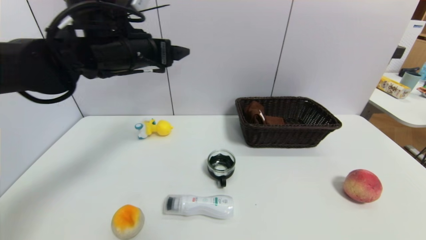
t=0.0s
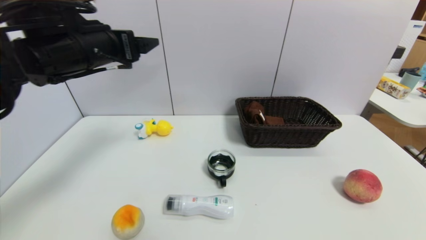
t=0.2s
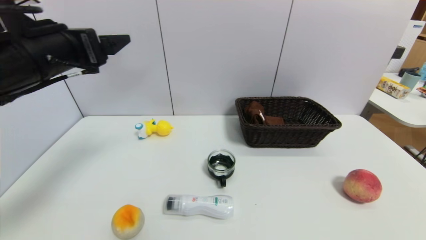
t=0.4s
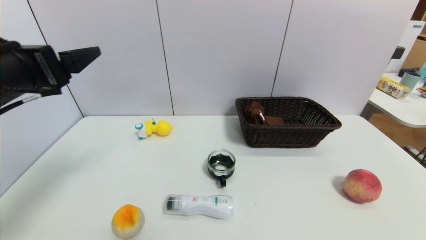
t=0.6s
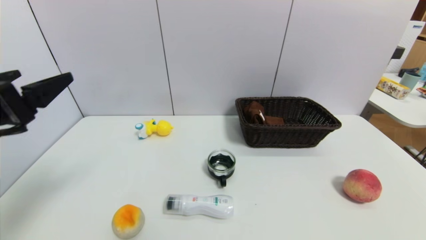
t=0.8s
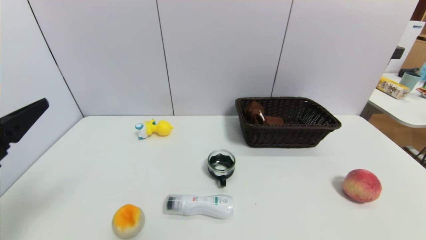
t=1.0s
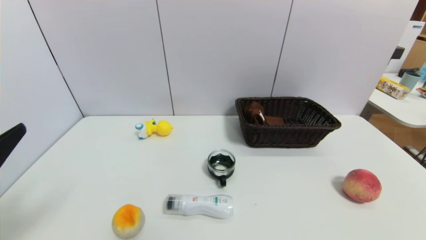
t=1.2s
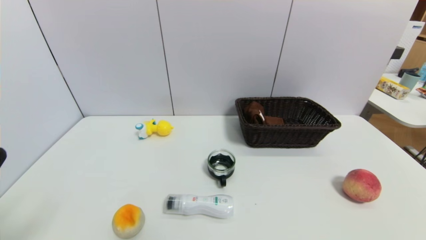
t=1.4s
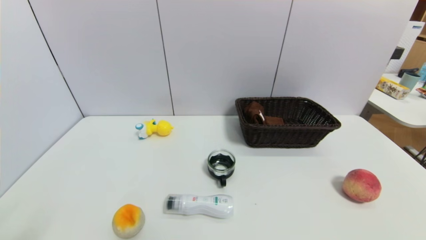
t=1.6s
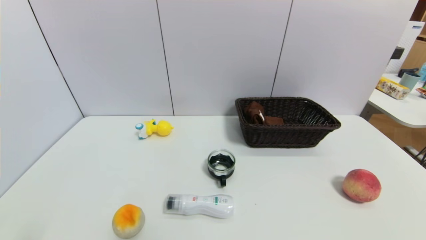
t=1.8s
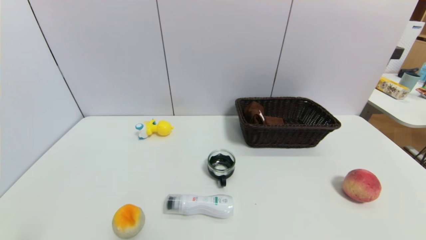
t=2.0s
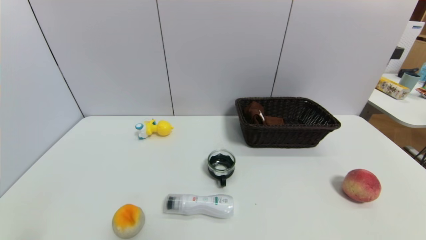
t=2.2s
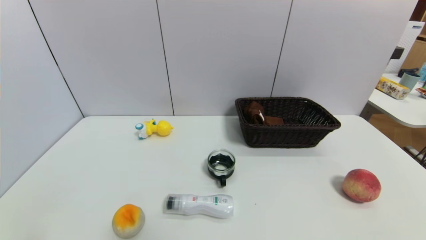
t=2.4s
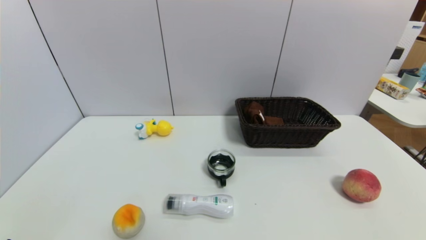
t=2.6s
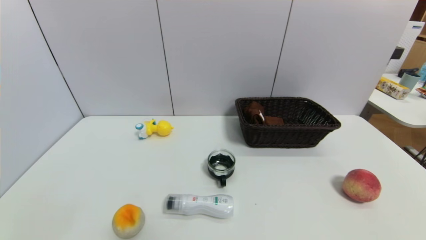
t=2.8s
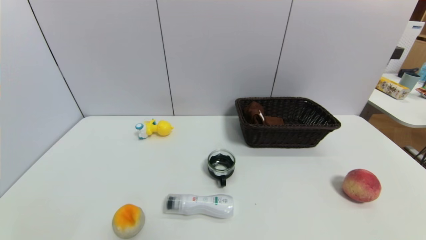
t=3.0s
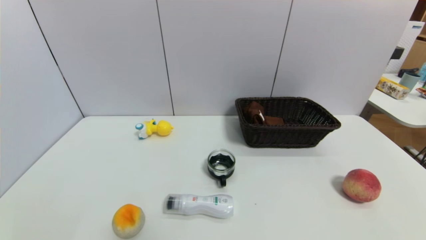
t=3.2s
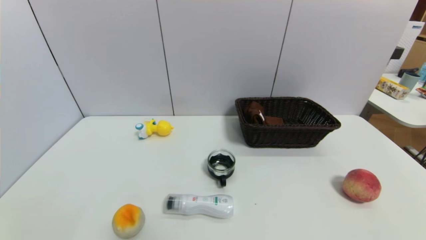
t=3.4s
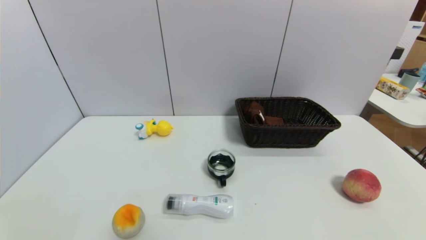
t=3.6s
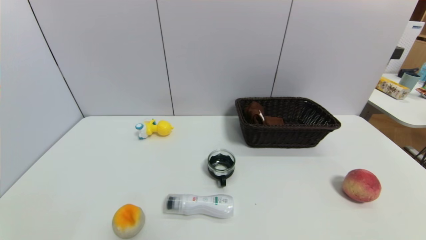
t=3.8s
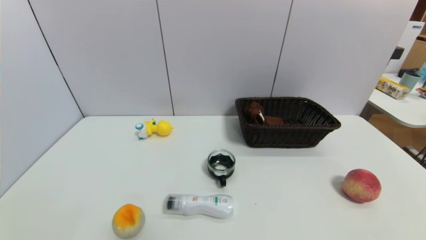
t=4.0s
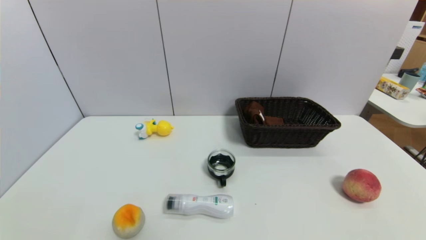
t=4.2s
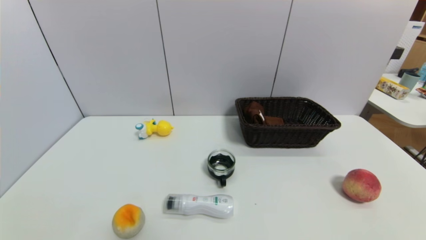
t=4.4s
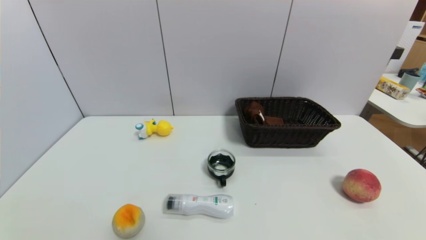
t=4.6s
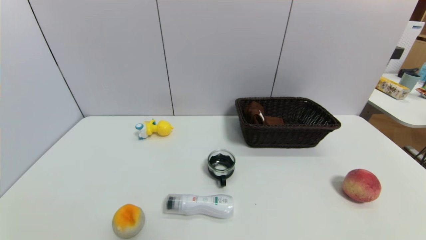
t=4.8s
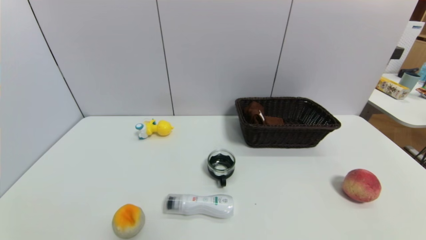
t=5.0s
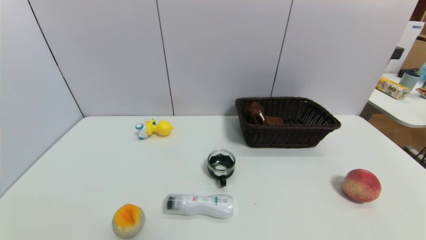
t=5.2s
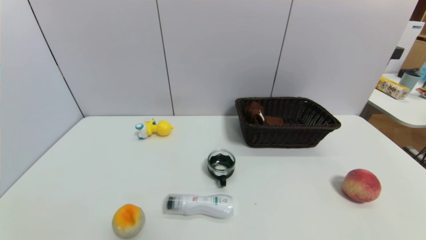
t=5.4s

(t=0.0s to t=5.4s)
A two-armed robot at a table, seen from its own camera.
Task of the whole recording: use a gripper to pick the target object and place on the brown basket.
t=0.0s - t=1.4s: The left gripper is displaced backward, to the left and downward by approximately 35 cm.
t=4.0s - t=5.4s: The two grippers keep their place.
